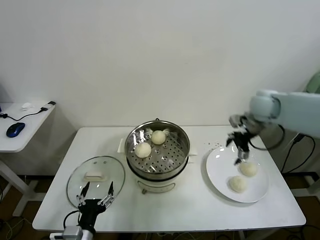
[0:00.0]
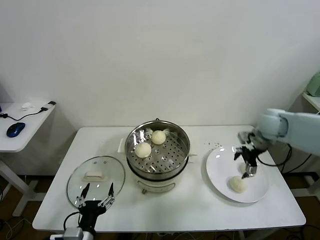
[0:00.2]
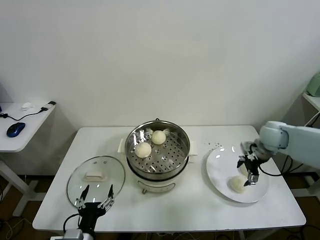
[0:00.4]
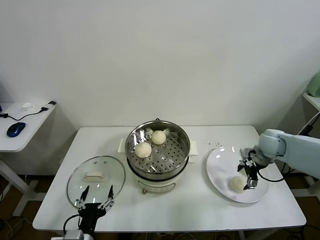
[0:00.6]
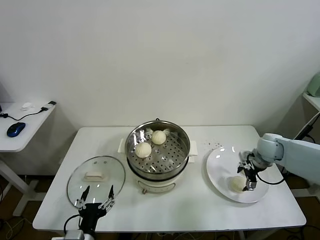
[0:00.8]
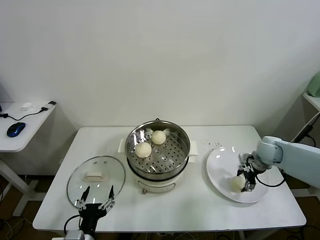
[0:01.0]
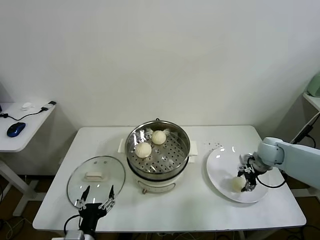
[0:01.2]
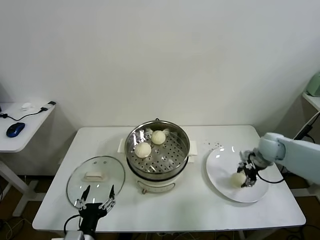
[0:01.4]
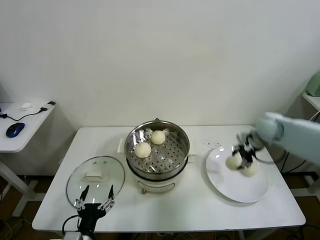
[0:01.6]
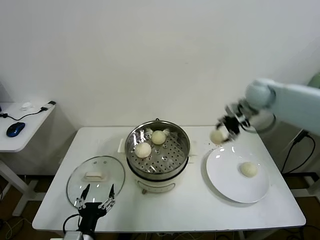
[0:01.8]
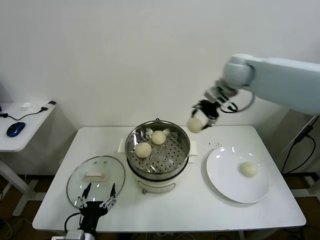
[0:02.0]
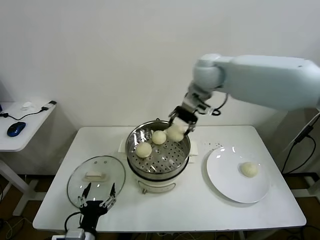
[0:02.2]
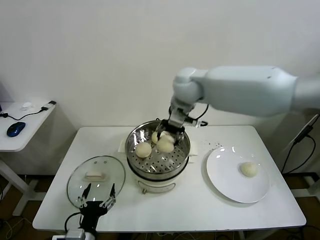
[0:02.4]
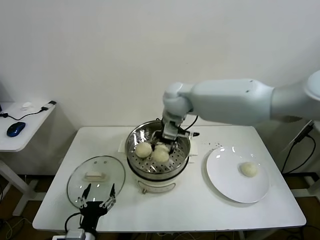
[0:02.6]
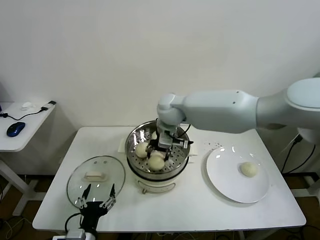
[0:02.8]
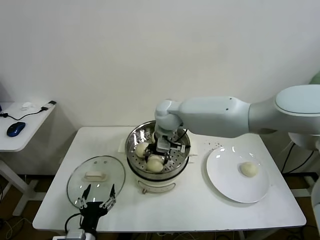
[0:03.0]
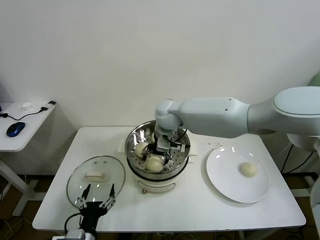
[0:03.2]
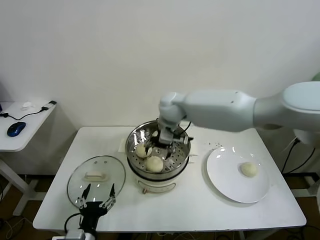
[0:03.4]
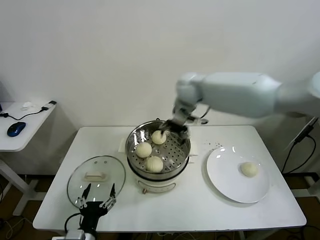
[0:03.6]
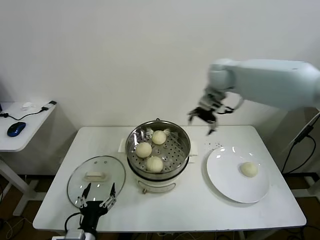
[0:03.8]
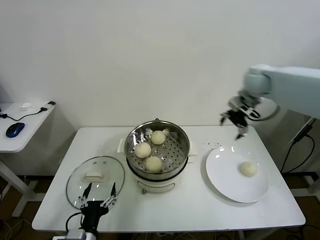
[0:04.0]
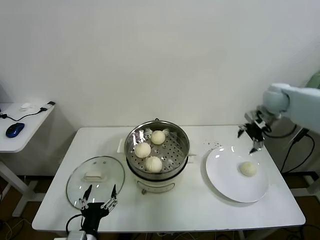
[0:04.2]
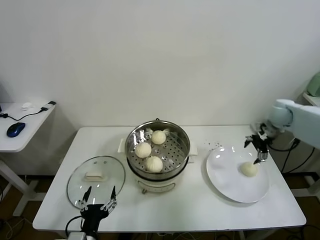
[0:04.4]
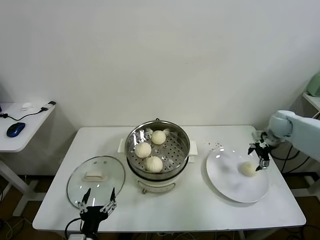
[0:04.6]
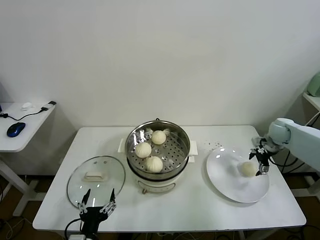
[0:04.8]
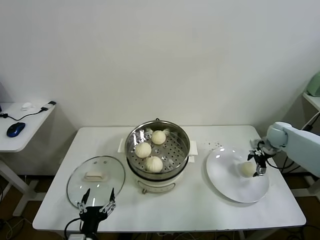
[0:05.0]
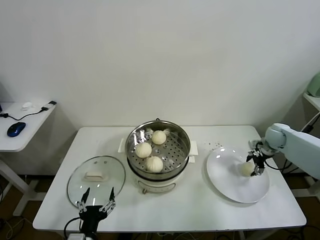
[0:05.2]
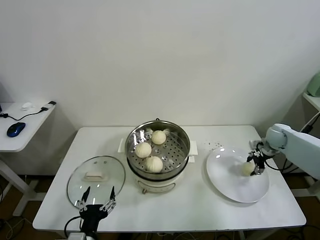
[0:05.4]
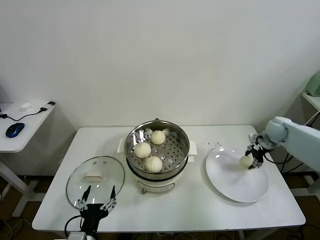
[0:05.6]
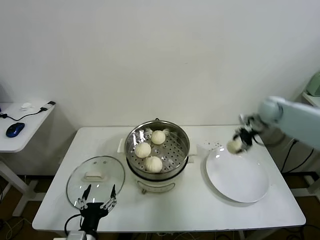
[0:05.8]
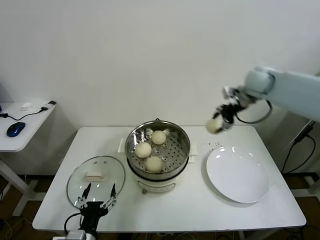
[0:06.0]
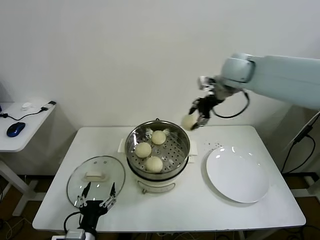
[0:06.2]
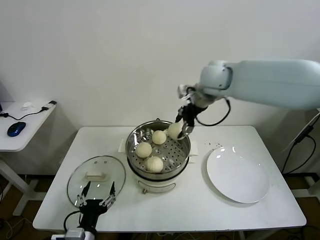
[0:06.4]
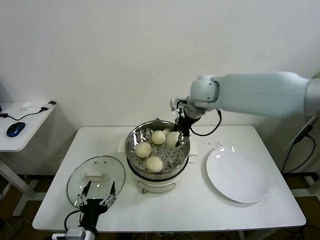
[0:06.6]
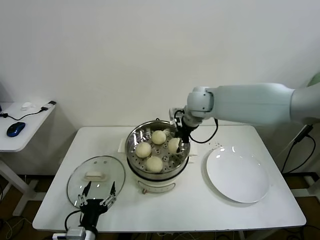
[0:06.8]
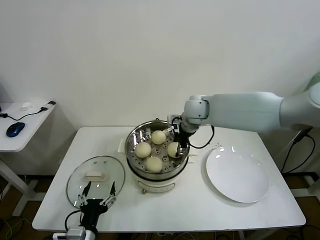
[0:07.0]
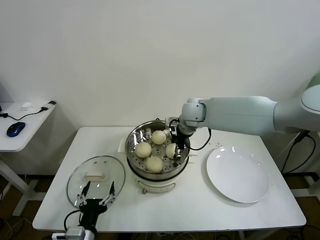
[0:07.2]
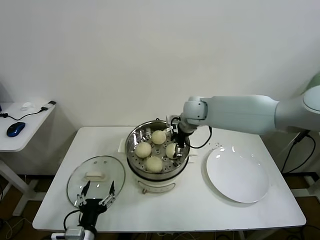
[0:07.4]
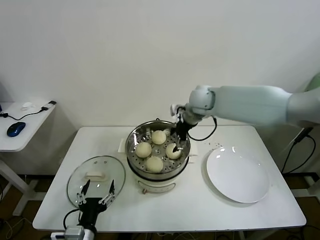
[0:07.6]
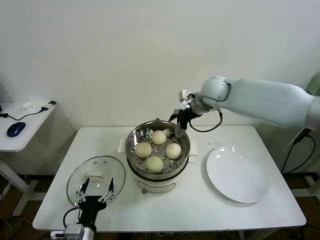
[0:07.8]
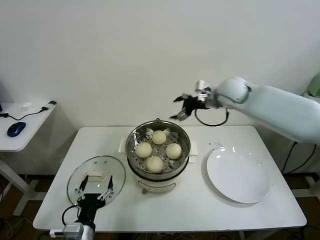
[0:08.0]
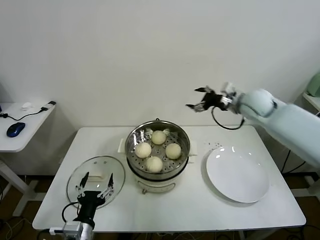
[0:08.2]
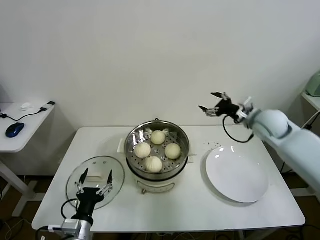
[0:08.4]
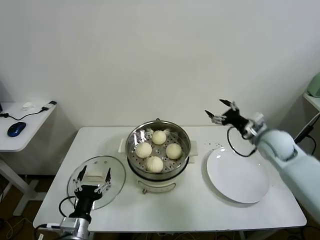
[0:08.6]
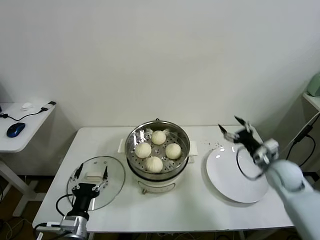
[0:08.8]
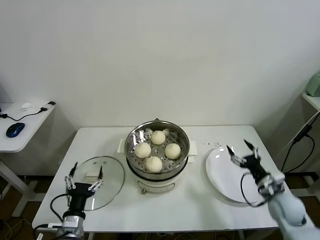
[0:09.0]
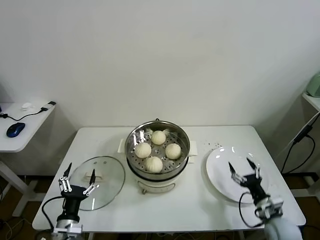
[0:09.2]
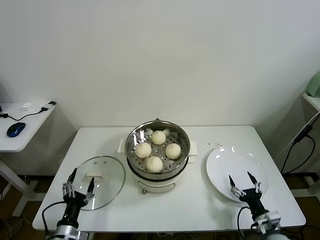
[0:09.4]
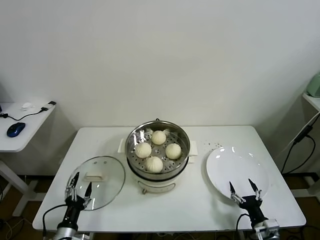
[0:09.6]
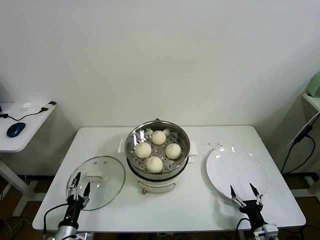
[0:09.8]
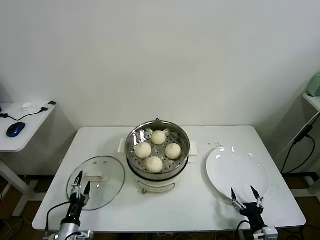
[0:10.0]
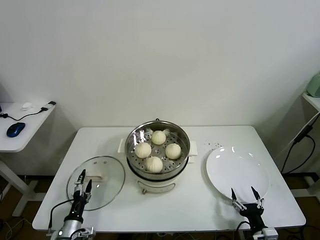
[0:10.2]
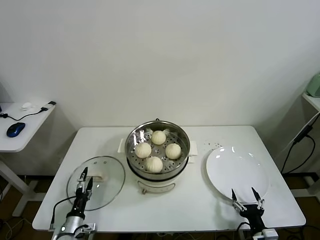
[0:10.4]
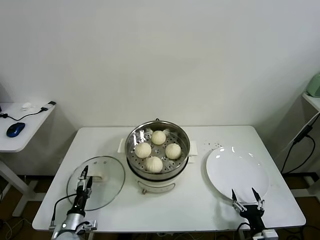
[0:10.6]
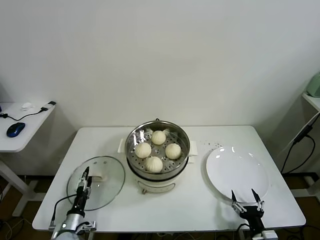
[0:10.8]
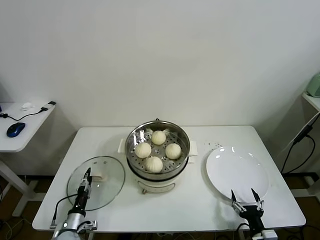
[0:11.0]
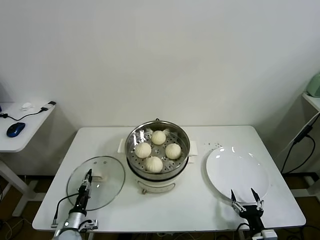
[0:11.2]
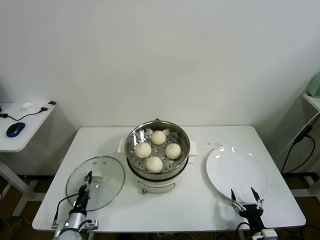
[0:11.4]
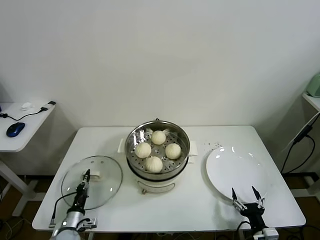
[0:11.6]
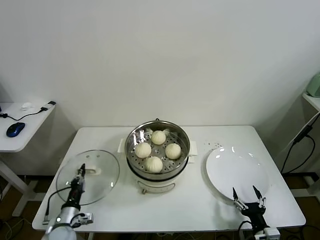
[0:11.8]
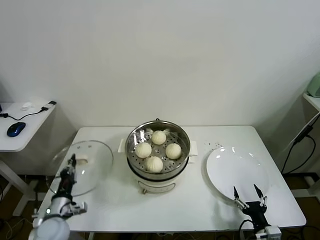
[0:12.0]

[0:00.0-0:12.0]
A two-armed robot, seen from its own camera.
Task of the whole recording: take steamed baozi put them in steamer.
Step, 0:00.0 to 0:01.2: Grasp the baozi in the plate with right gripper.
Step, 0:01.4 to 0:03.2: Place the baozi on the steamer with right gripper.
Step, 0:03.4 to 0:05.4: Grasp the baozi in the plate with right gripper.
Step, 0:05.6 to 0:07.4: Place the baozi on the steamer with right gripper.
Step, 0:07.6 to 0:11.4: Grasp the pot lid with left gripper.
0:00.0 to 0:01.6: The right gripper moves some 15 cm downward and comes back, and closes its fingers.
0:01.6 to 0:03.0: The right gripper moves to the left, some 35 cm.
0:03.0 to 0:04.4: The right gripper travels to the right by about 40 cm.
0:04.4 to 0:06.0: The right gripper moves upward and to the left, approximately 20 cm, and closes up.
0:06.0 to 0:07.6: The right gripper travels to the left and downward by roughly 15 cm, and opens.
0:07.6 to 0:09.0: The right gripper travels downward, to the right and backward by approximately 40 cm, while the left gripper shifts by about 5 cm.
0:09.0 to 0:10.4: The right gripper travels backward, downward and to the left by approximately 20 cm. The left gripper travels downward and to the left by about 15 cm.
0:10.4 to 0:12.0: The left gripper heads upward, covering roughly 10 cm, and closes its fingers.

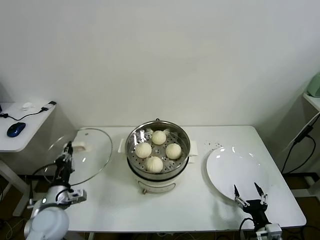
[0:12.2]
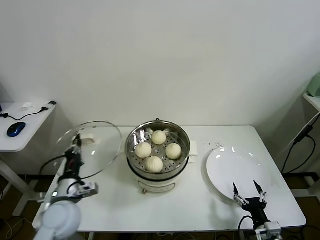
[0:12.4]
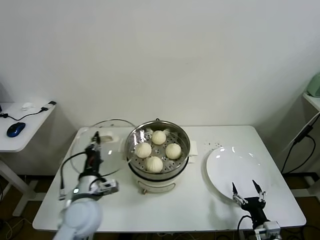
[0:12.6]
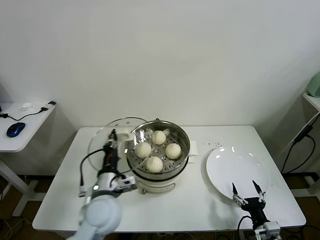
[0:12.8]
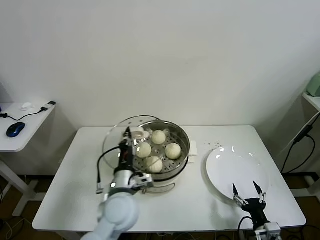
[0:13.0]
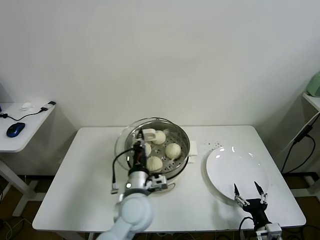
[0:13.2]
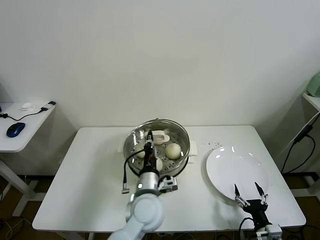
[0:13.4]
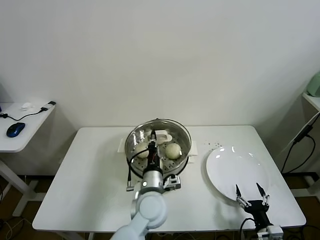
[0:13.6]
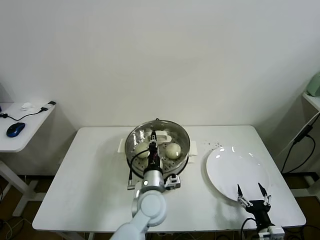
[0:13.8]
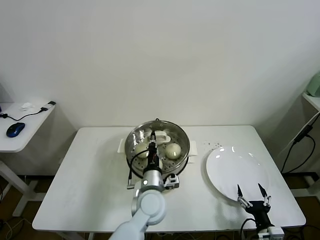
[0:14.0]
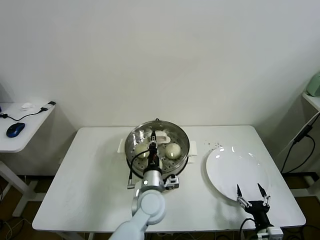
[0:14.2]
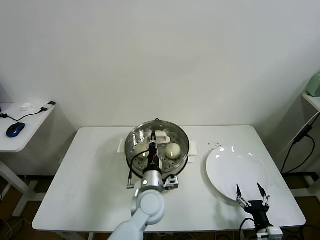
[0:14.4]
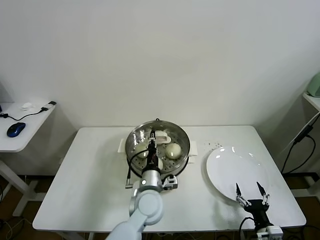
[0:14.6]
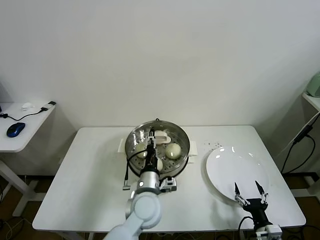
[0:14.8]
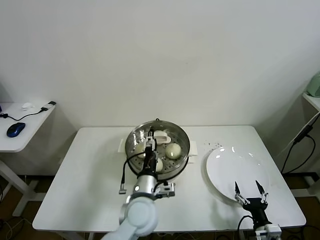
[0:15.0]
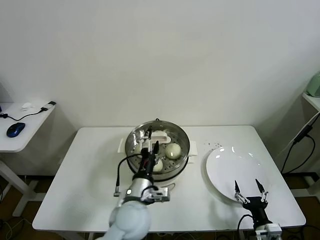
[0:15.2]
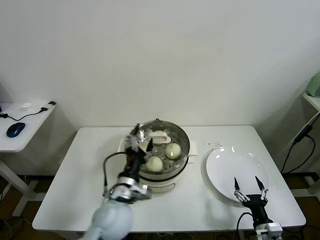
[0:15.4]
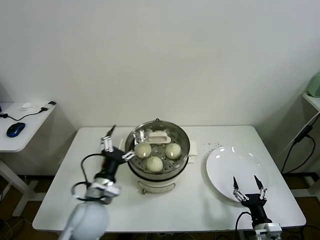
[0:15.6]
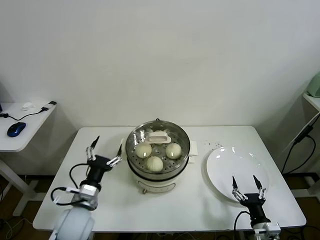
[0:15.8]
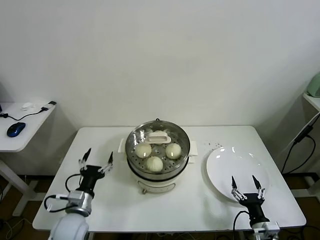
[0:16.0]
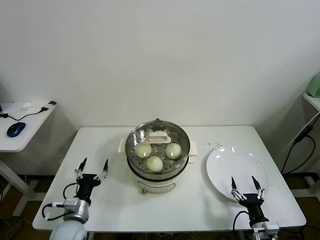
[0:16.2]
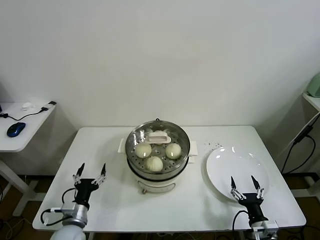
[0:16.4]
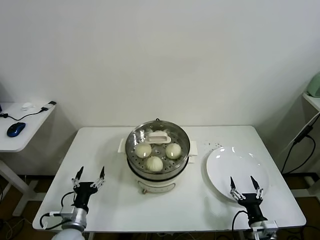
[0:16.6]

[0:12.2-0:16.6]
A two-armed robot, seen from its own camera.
Task of the whole recording: take steamed baozi put them in steamer.
Step, 0:12.2 to 0:15.0: Place the pot lid on the steamer with left gripper.
0:12.2 to 0:13.6: The left gripper moves to the right, approximately 30 cm.
0:13.6 to 0:15.2: The left gripper ends up roughly 5 cm from where it was, and opens.
0:15.2 to 0:16.6: The left gripper is displaced to the left and downward by roughly 25 cm.
